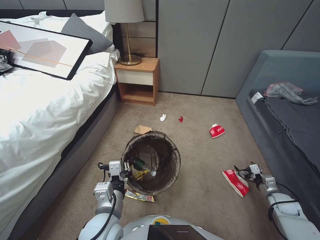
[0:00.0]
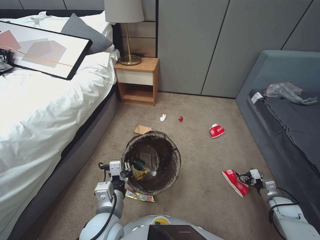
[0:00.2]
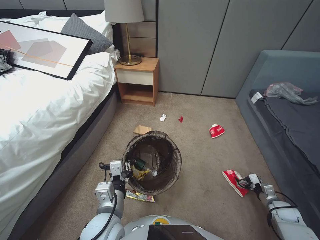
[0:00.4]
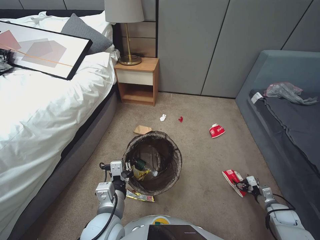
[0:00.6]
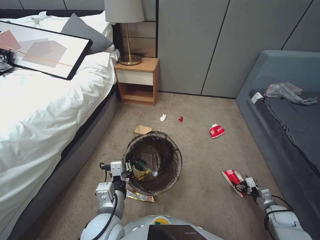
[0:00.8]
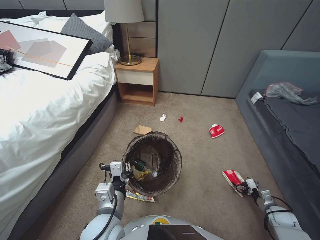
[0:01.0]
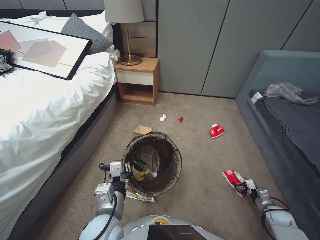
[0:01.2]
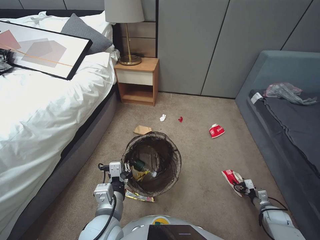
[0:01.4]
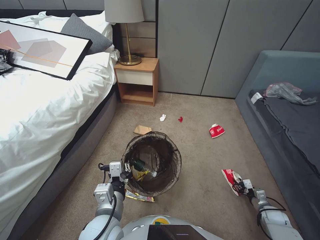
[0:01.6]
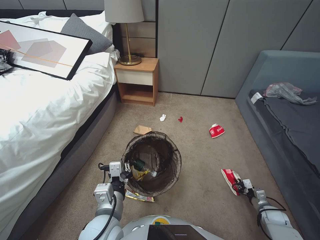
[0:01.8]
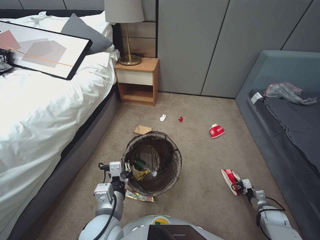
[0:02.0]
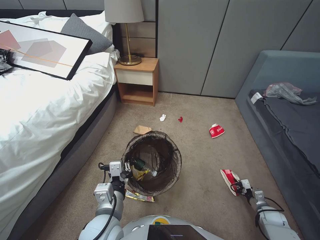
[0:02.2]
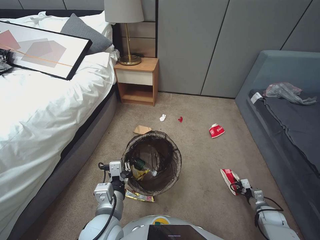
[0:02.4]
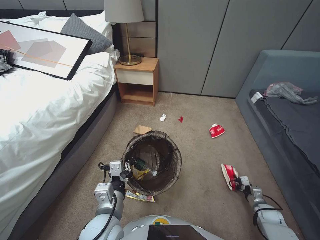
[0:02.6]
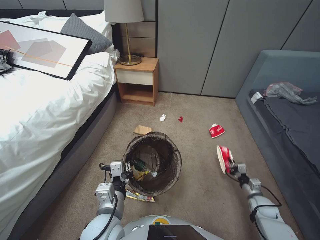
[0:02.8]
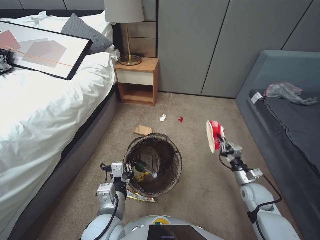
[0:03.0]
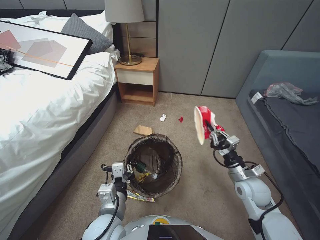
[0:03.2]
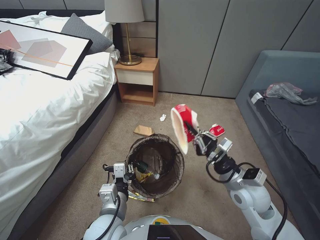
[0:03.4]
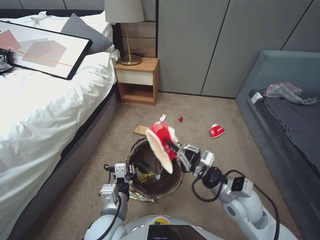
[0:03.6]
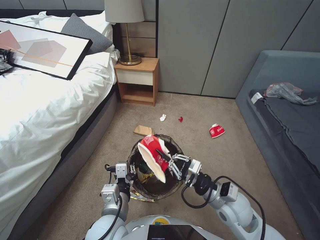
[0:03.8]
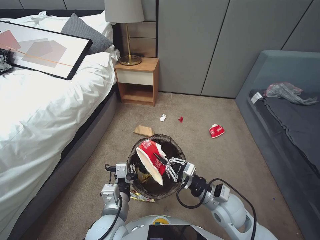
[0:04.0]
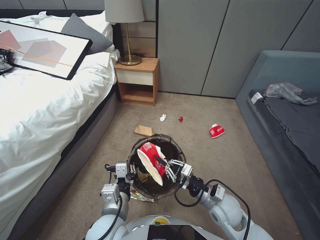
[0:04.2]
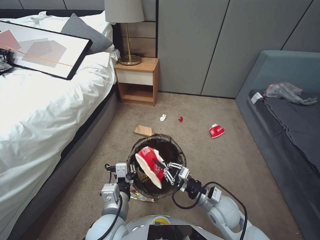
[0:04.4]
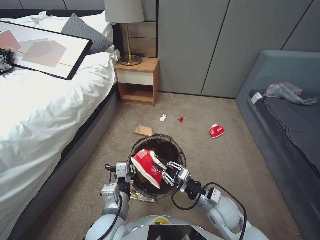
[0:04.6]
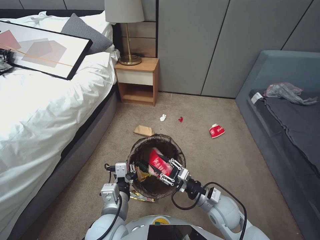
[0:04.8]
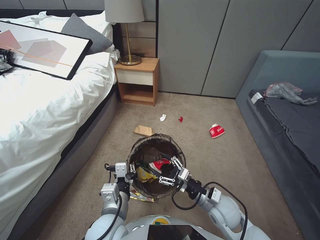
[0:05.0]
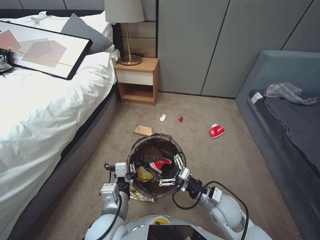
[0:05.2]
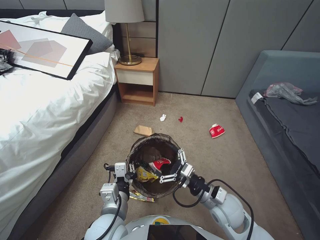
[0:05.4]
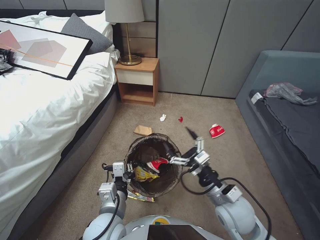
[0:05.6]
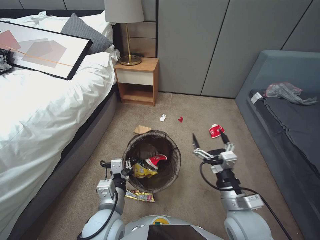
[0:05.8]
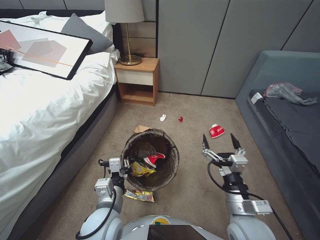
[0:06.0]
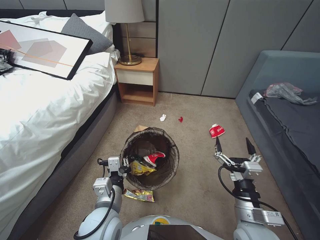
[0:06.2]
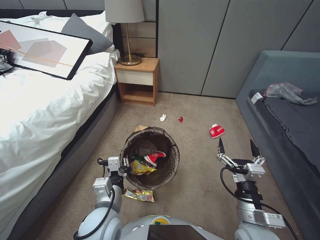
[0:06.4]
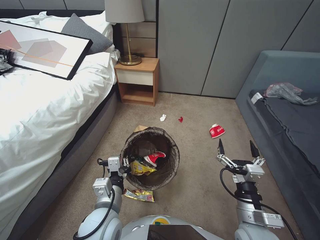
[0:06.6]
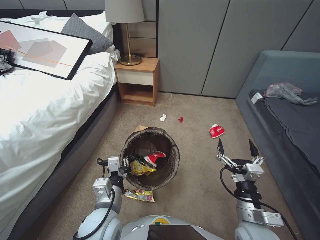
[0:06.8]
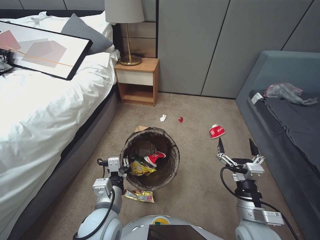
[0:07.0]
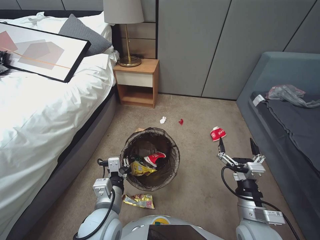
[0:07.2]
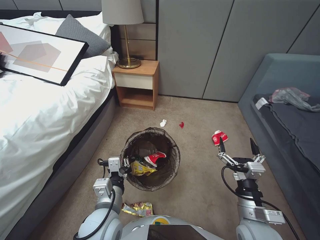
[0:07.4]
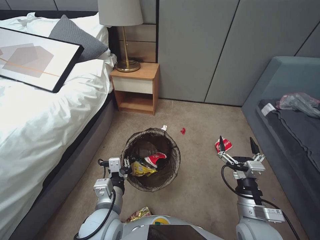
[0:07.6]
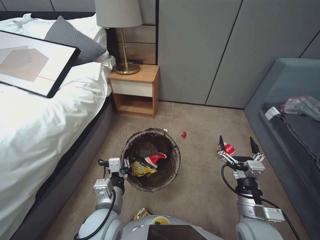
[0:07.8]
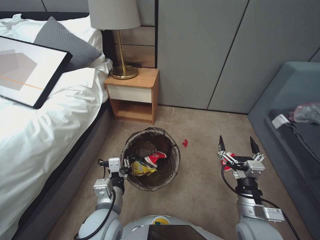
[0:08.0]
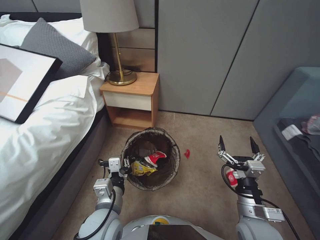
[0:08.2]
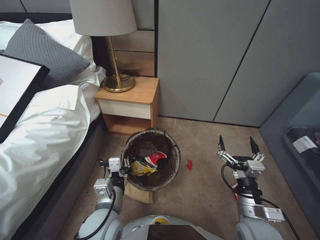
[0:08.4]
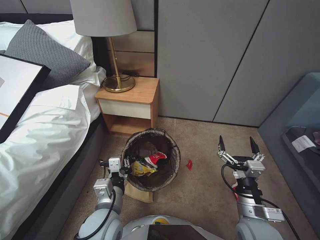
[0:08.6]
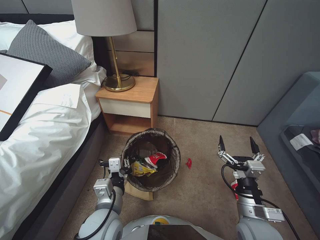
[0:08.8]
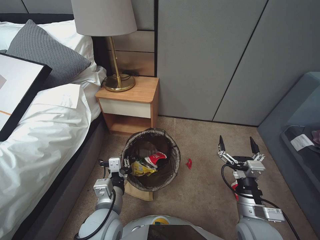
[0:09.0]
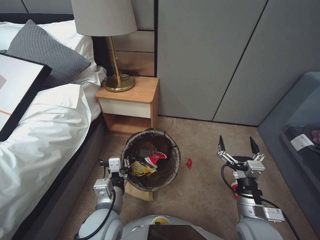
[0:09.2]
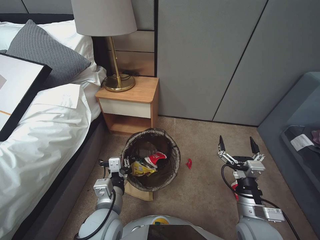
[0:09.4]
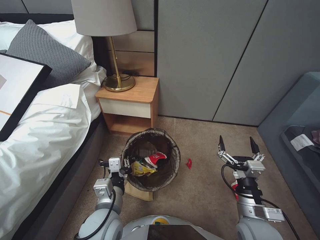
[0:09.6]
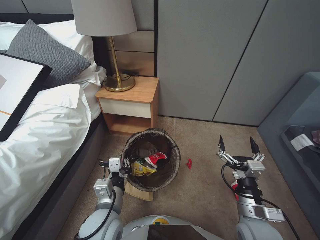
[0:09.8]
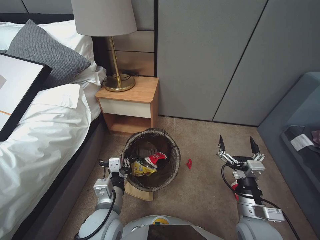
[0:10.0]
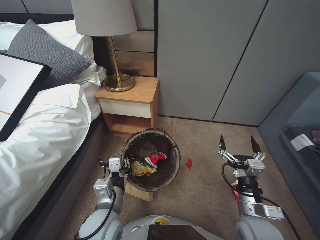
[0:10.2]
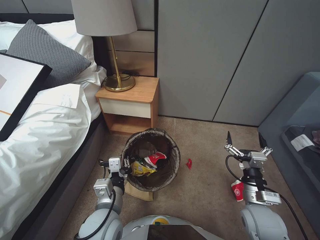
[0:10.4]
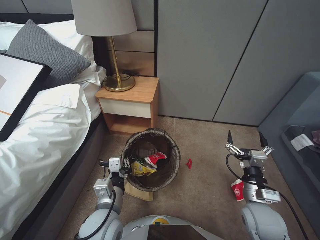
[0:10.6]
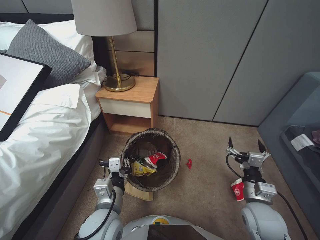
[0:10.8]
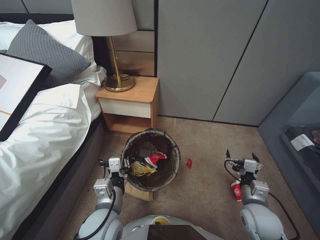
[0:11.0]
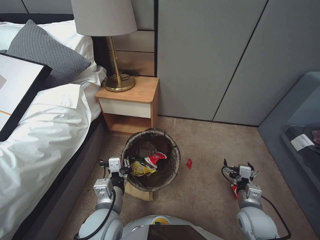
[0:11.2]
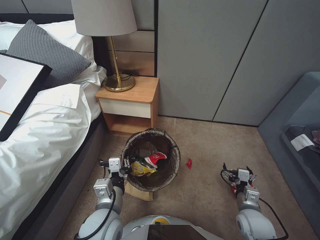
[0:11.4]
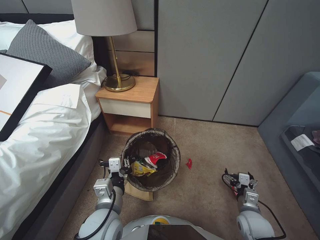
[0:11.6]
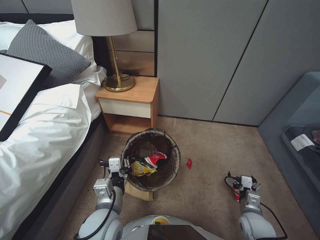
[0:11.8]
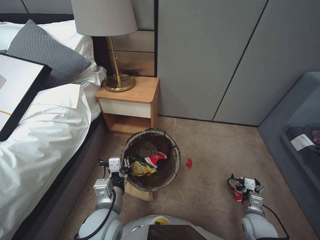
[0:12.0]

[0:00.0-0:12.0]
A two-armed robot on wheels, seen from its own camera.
Task of the whole recording: Pick up the trash bin, then pick up the garbage from the floor and place it into the trash bin.
0:00.0 to 0:01.6: The right gripper goes some 10 cm downward, and closes up.
0:01.6 to 0:03.0: The right gripper is displaced to the left, upward and forward by approximately 20 cm, and closes up.
0:03.0 to 0:04.4: The right gripper shifts some 20 cm to the left and upward.
0:04.4 to 0:06.0: The right gripper travels upward and backward by some 10 cm, and opens its fingers.
0:09.0 to 0:10.4: Both grippers stay put.
0:10.4 to 0:12.0: The right gripper travels downward and to the right by some 15 cm.

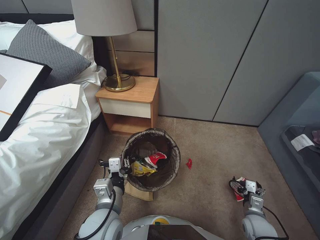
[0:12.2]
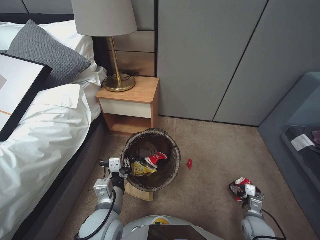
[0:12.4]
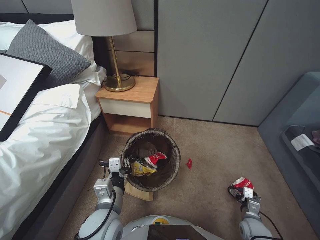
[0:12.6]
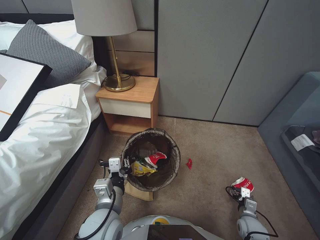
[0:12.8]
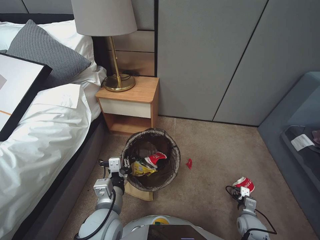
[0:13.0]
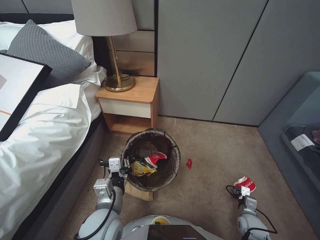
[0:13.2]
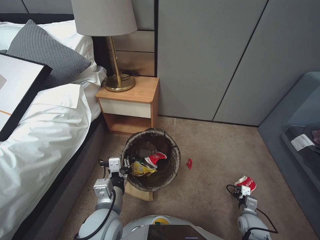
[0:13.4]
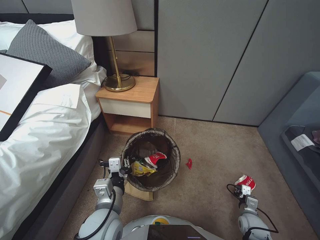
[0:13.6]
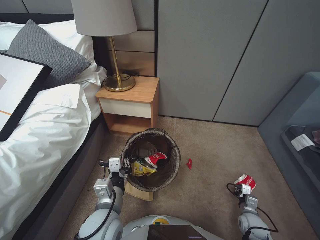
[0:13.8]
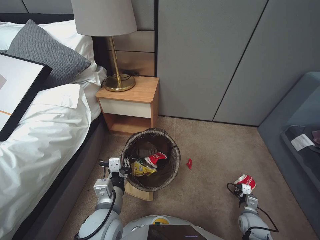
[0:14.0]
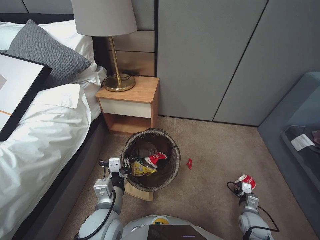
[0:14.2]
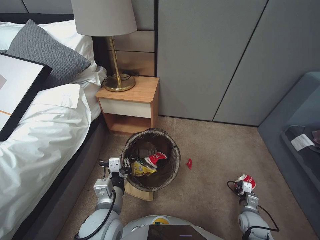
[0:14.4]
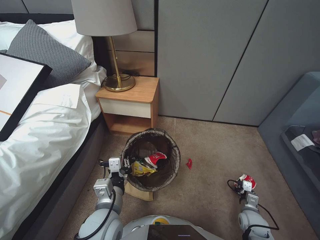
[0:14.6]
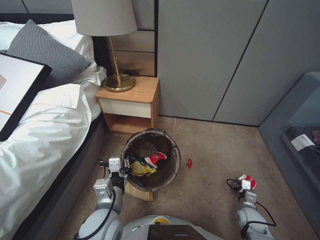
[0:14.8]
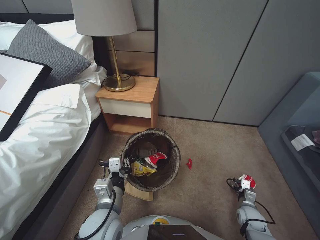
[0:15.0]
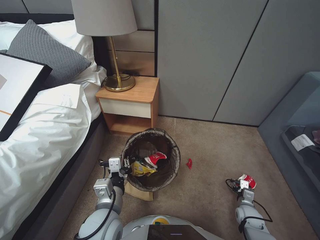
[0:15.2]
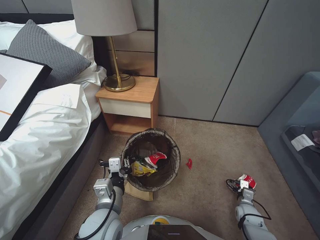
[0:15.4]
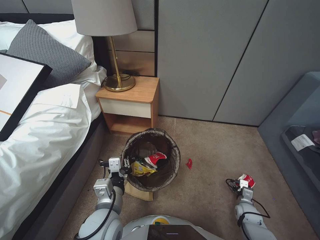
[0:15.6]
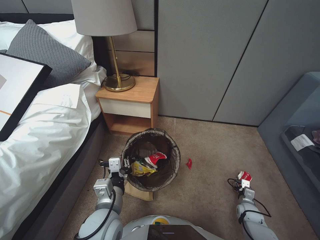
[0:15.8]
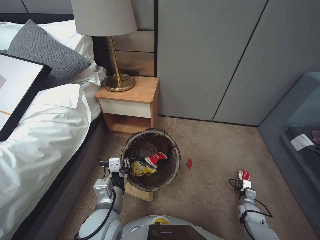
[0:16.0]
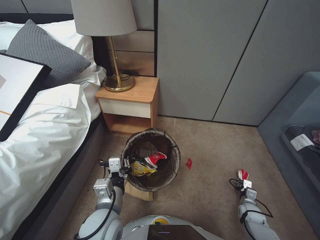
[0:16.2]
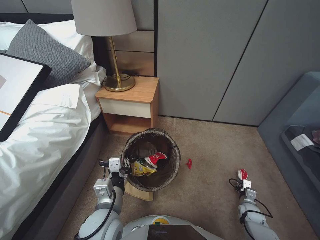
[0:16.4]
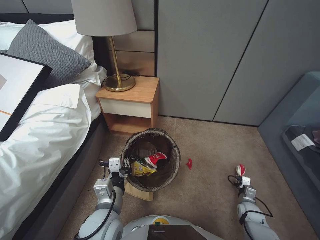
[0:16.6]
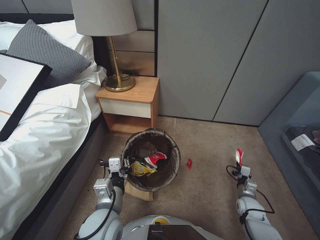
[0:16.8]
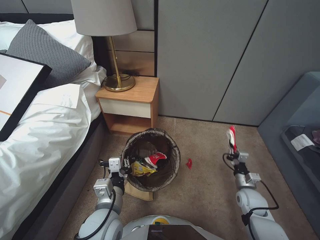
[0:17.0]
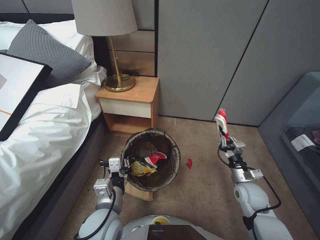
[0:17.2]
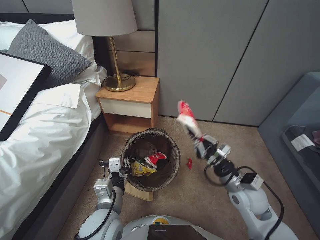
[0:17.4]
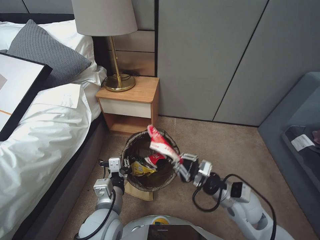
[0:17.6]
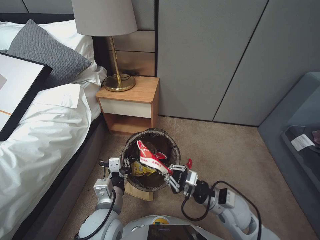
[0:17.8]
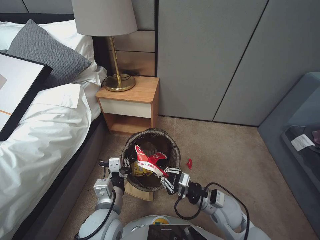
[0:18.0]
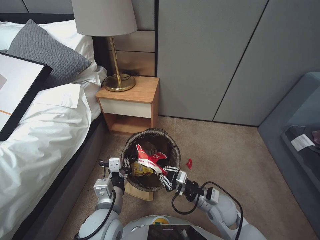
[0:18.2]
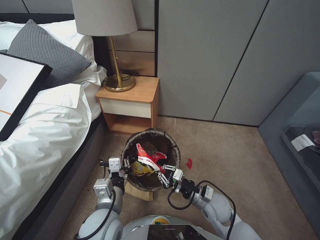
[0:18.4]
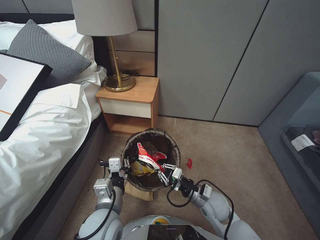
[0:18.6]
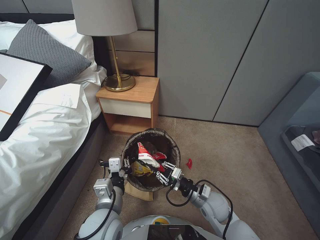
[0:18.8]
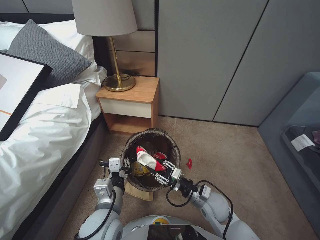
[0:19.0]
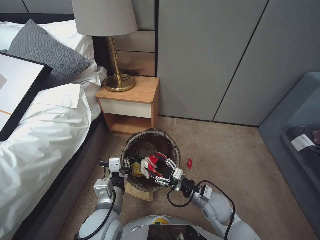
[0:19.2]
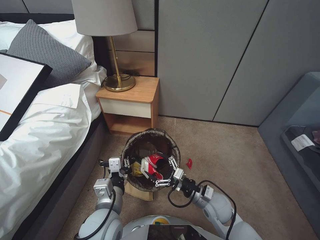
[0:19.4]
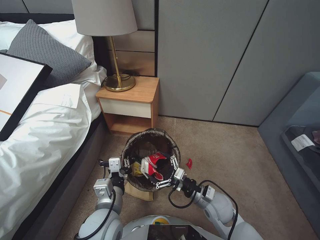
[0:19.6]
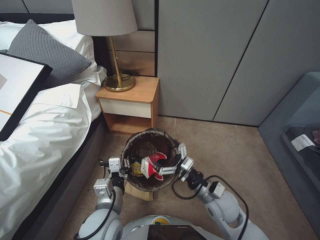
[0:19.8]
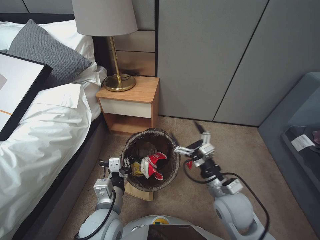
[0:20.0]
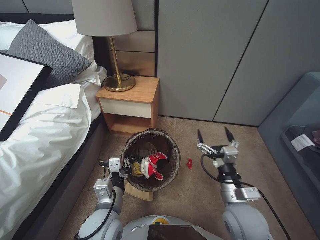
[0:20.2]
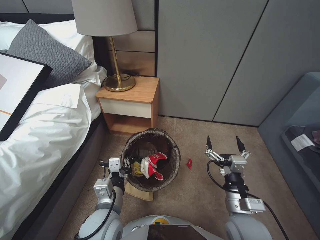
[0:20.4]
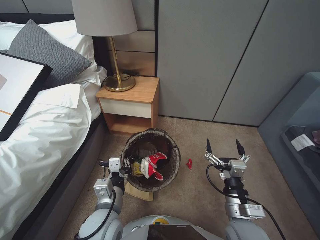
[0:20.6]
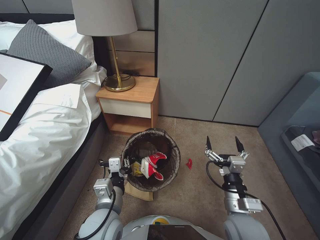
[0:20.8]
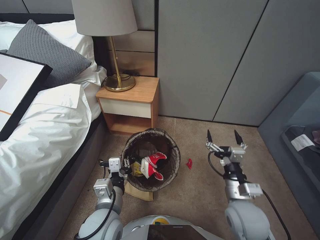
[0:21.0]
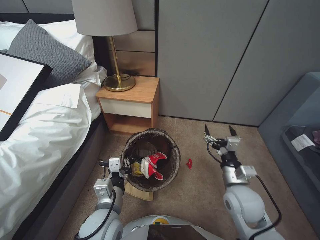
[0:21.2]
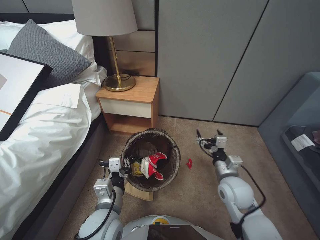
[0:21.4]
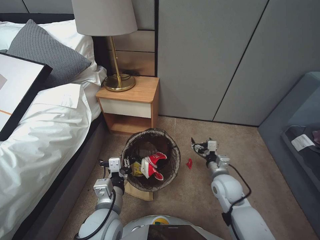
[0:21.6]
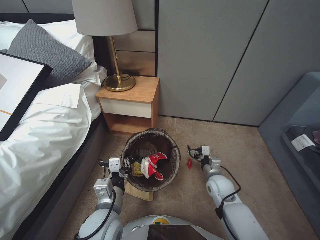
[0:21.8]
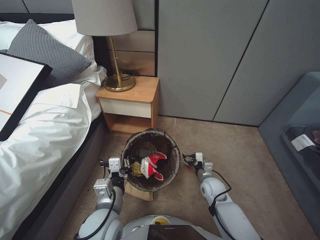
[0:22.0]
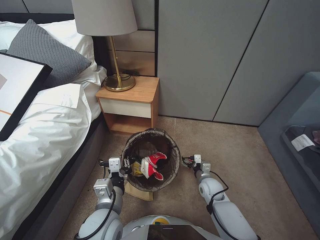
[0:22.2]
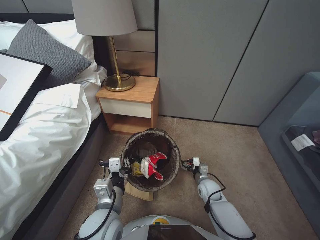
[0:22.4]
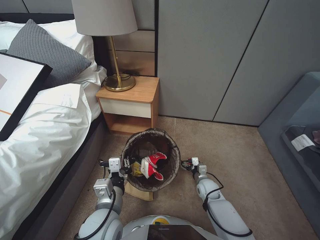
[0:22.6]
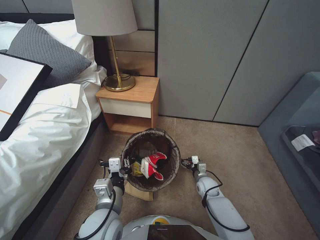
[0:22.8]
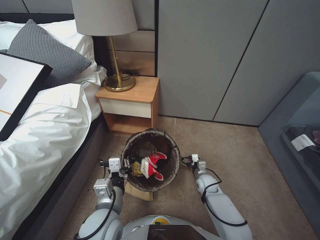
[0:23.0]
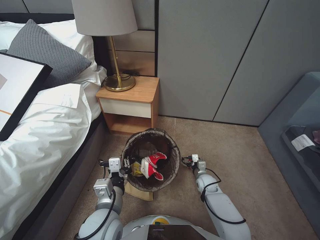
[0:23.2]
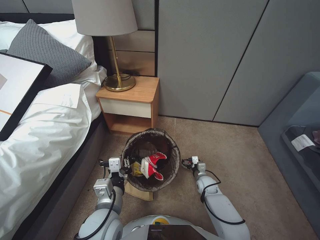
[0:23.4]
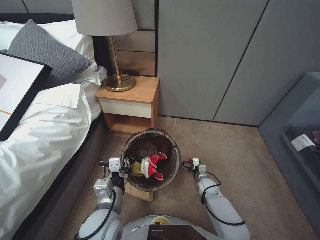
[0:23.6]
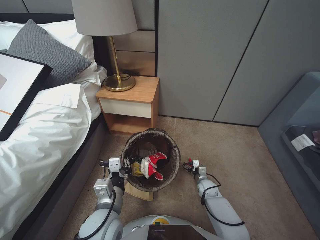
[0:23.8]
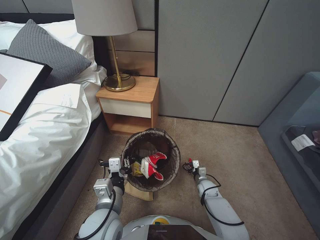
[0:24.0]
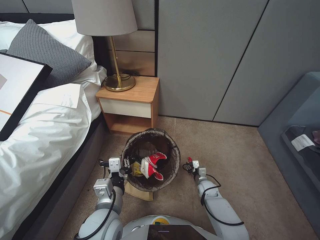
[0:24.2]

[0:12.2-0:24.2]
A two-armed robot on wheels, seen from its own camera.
Task of the whole recording: Pick up the trash bin, then pick up the garbage from the floor and place it into the trash bin.
0:12.2 to 0:13.8: The right gripper travels downward by some 10 cm, and closes up.
0:13.8 to 0:15.2: The right gripper opens its fingers.
0:15.2 to 0:16.6: The right gripper changes place by some 5 cm, and closes its fingers.
0:16.6 to 0:18.2: The right gripper shifts some 30 cm to the left and upward.
0:18.2 to 0:19.8: The right gripper opens up.
0:19.8 to 0:21.2: The right gripper goes some 5 cm upward.
0:21.2 to 0:22.6: The right gripper shifts approximately 25 cm downward and forward.
0:22.6 to 0:24.2: The right gripper goes roughly 5 cm downward, and closes up.
